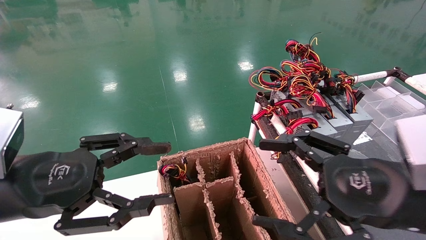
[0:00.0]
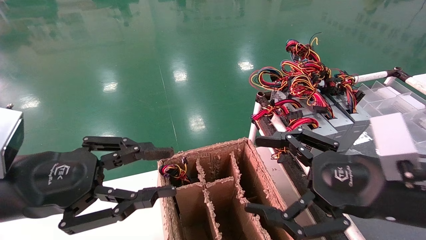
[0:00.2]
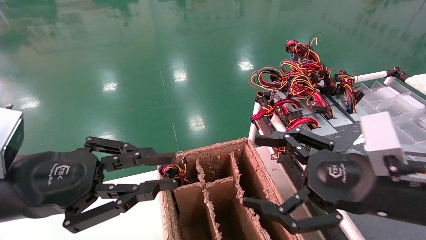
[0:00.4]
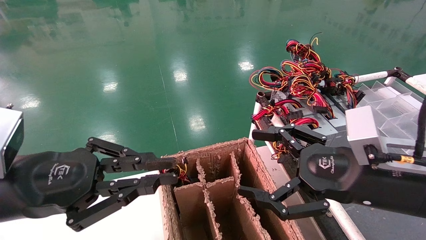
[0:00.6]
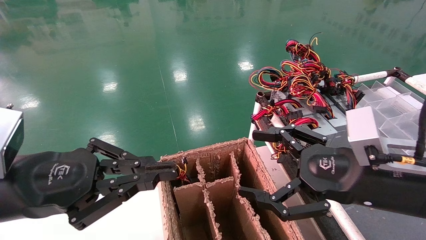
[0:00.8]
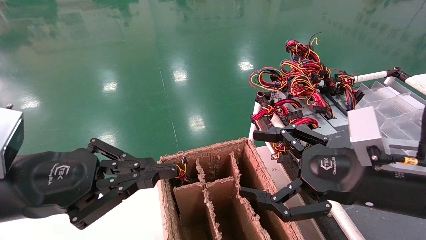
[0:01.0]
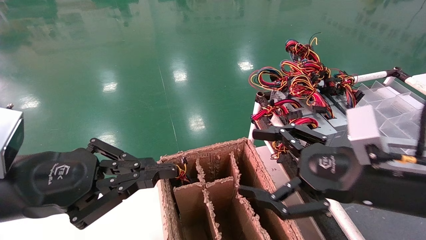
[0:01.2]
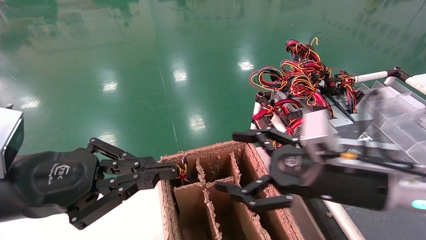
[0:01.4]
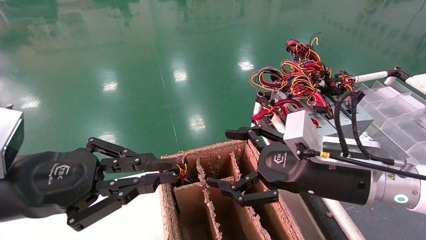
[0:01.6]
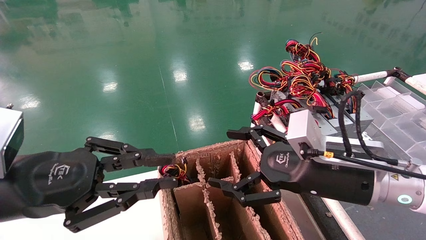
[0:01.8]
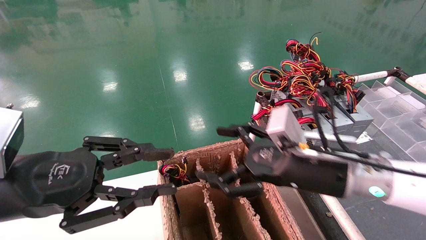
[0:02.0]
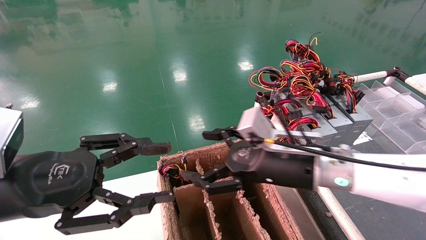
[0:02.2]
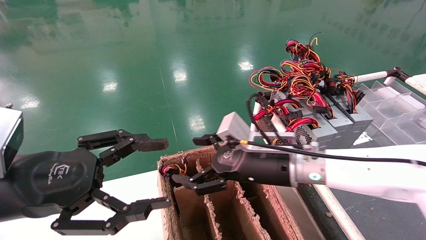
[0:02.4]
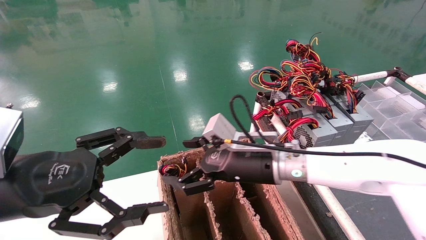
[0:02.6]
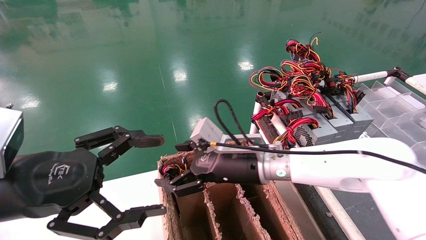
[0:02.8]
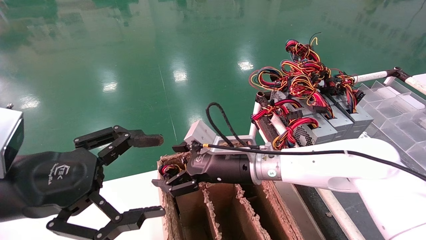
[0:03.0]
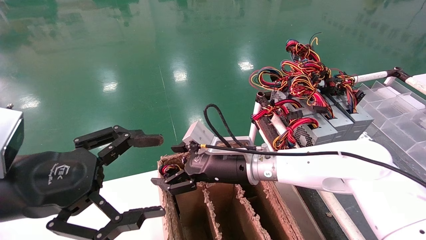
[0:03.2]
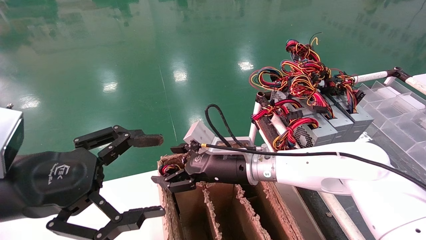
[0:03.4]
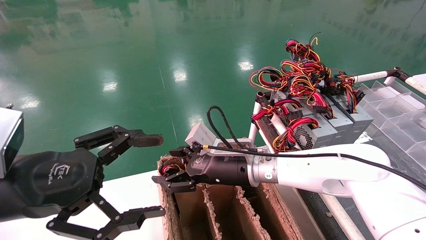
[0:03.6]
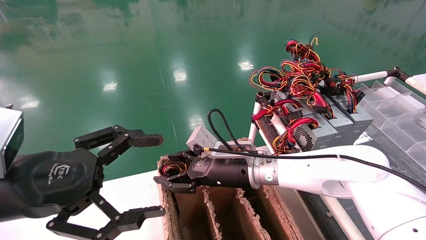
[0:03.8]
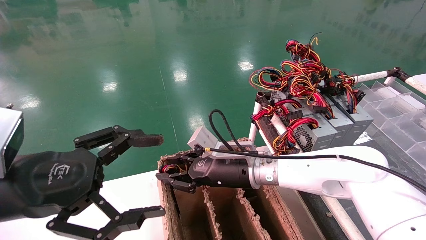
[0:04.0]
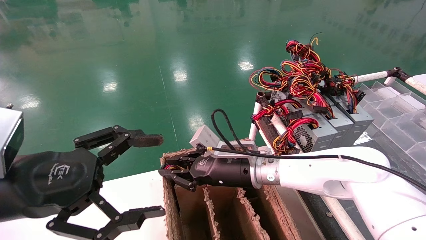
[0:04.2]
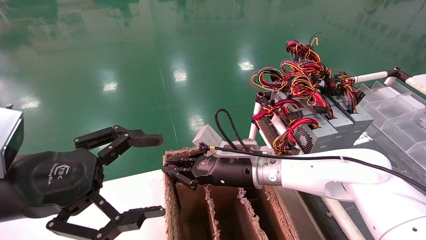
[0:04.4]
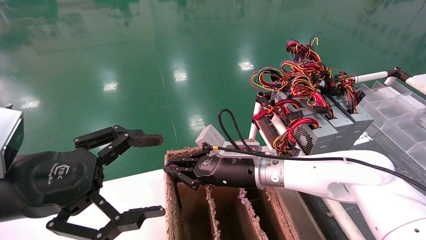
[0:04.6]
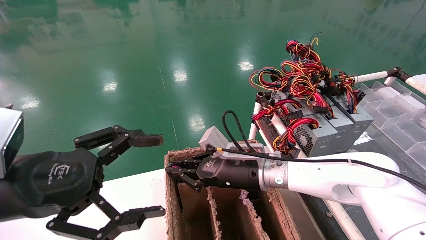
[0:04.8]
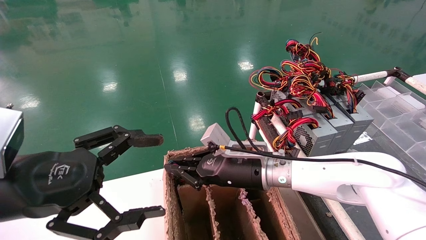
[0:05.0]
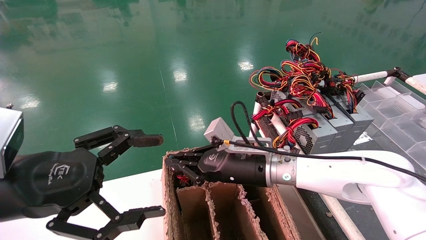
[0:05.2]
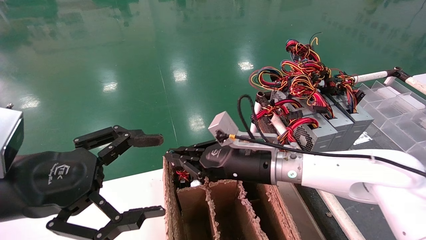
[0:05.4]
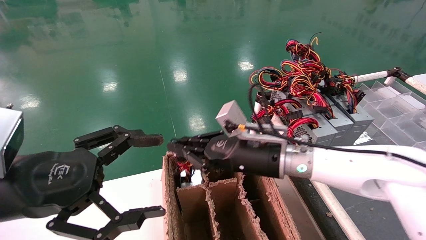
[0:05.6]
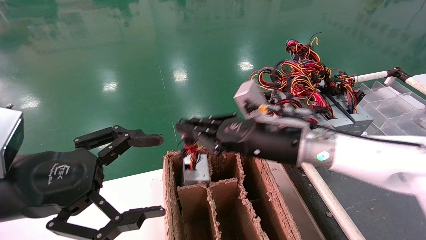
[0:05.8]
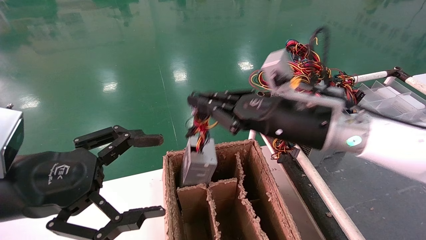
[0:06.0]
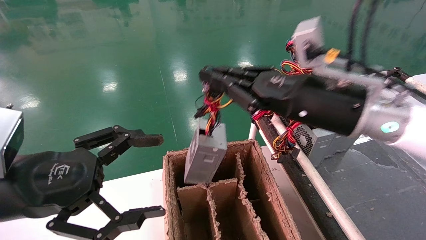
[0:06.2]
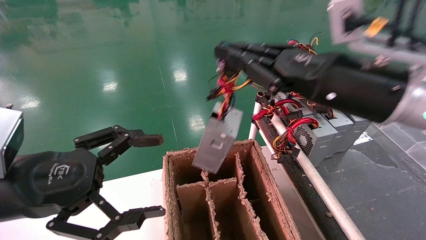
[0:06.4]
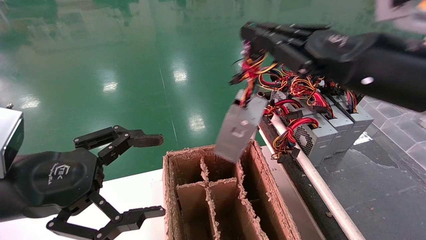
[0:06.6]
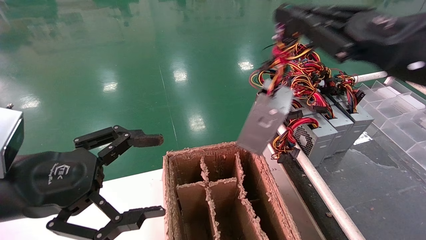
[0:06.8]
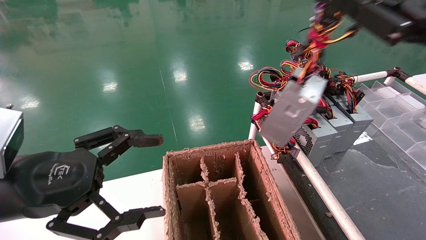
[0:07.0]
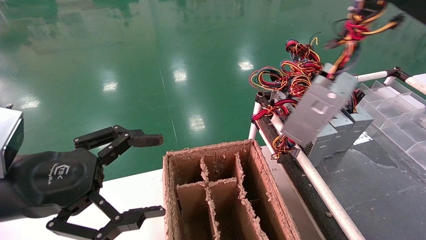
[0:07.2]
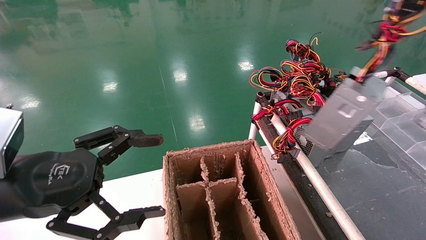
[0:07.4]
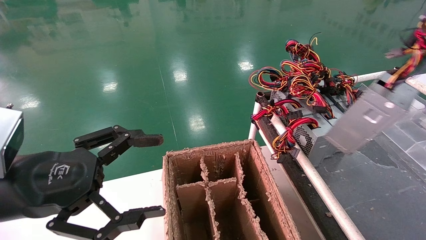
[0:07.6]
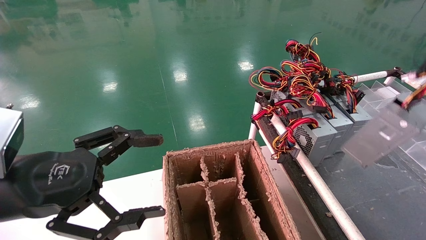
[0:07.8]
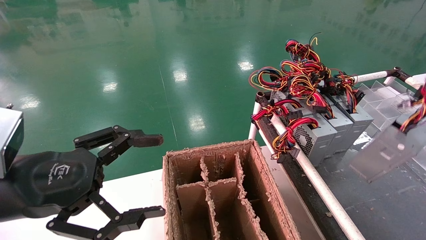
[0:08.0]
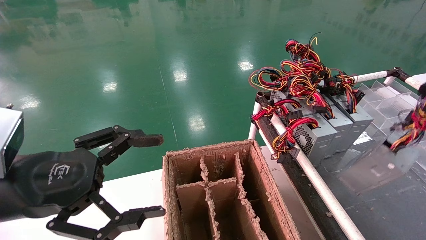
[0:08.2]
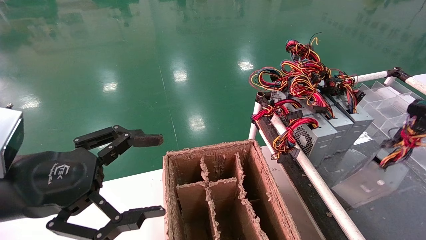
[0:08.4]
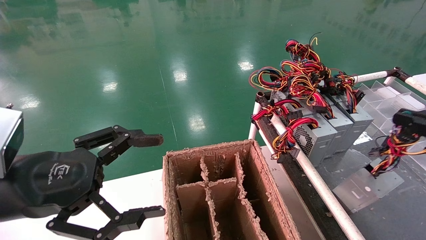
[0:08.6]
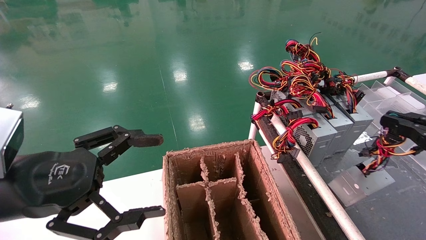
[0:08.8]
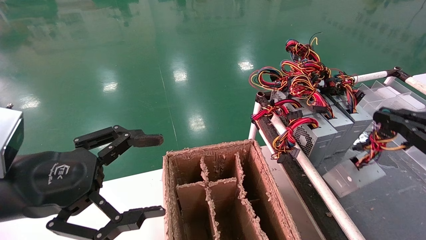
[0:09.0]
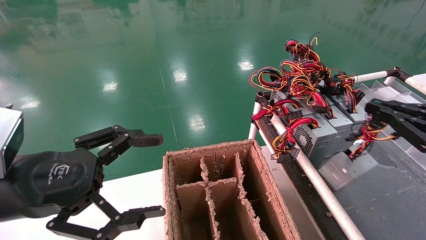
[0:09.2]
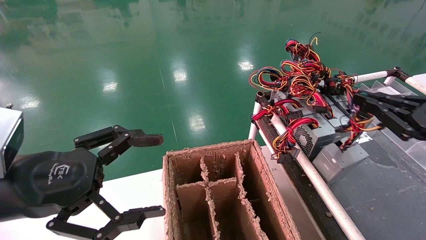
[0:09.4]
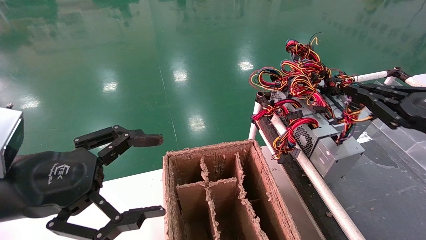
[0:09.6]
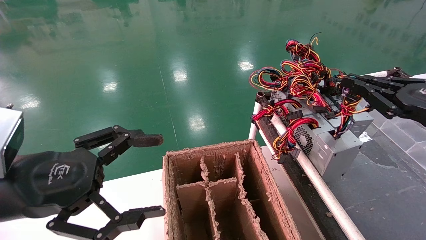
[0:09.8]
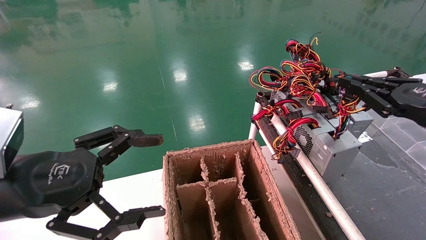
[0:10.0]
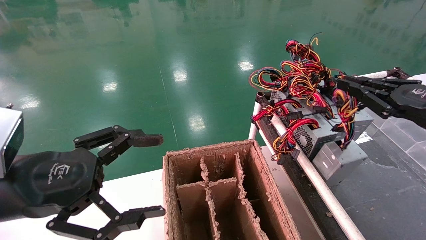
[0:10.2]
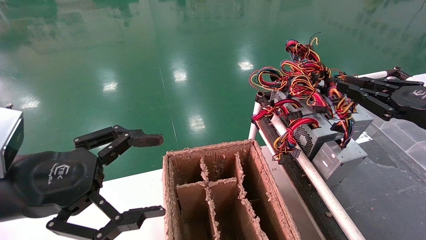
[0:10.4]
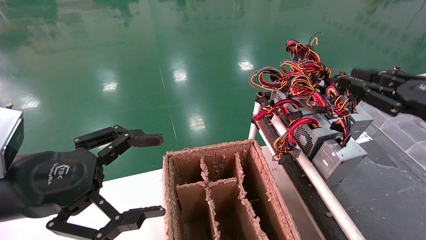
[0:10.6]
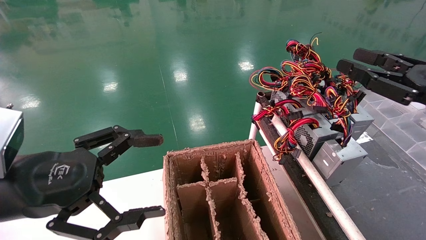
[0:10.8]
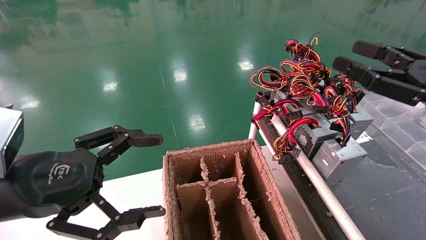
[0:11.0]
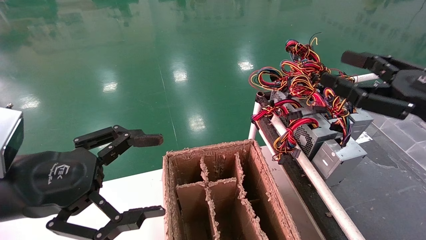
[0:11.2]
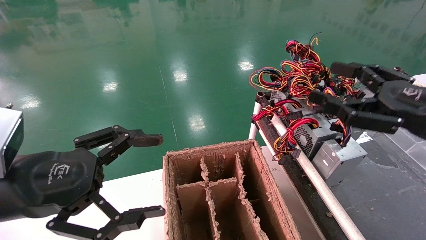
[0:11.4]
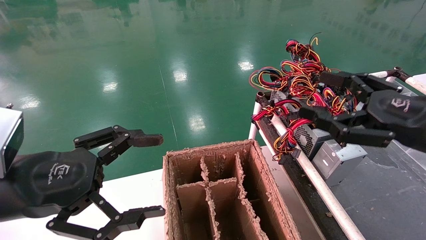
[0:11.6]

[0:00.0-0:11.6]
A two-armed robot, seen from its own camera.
Step, 1.4 to 4.8 s: Grab and lift the power supply from the large box.
Step, 5.0 to 10.2 s: Place the power supply on the operating table.
0.0 to 1.4 s: The left gripper closes its fingers. The right gripper ends up roughly 5 cm from where it was.
1.4 to 2.8 s: The right gripper is displaced to the left and forward by about 20 cm, while the left gripper opens up.
2.8 to 4.4 s: The right gripper closes its fingers.
4.4 to 5.8 s: The right gripper moves upward and to the right, some 10 cm.
5.8 to 7.2 s: The right gripper moves to the right, backward and upward, about 30 cm.
7.2 to 8.8 s: The right gripper is displaced downward and to the right by roughly 15 cm.
8.8 to 10.2 s: The right gripper shifts roughly 10 cm forward.
10.2 to 11.6 s: The right gripper goes roughly 5 cm to the left, and opens its fingers.

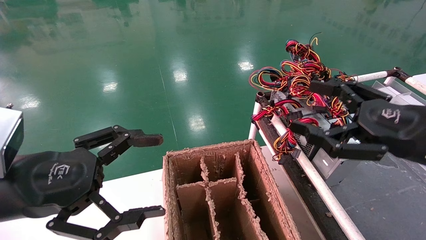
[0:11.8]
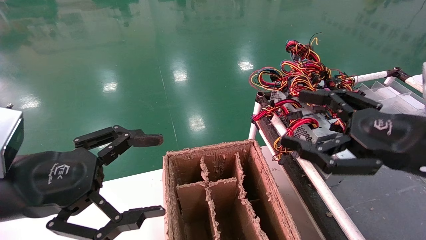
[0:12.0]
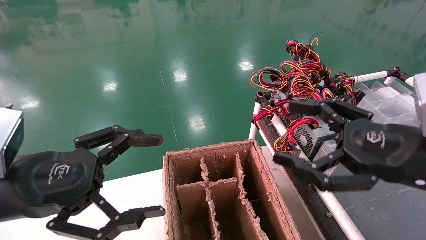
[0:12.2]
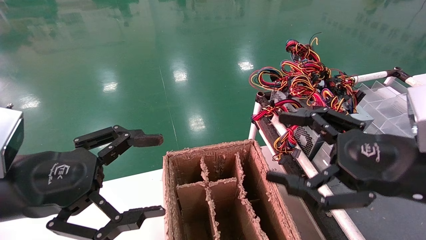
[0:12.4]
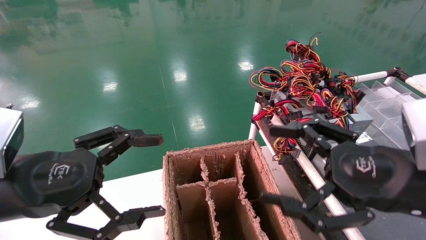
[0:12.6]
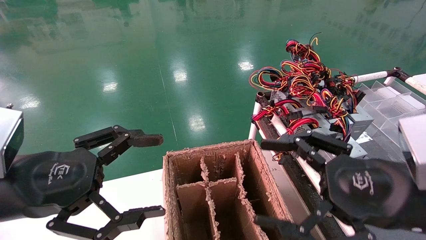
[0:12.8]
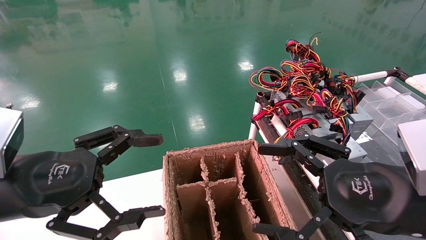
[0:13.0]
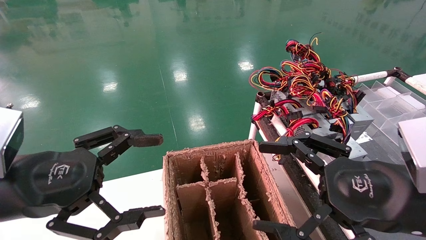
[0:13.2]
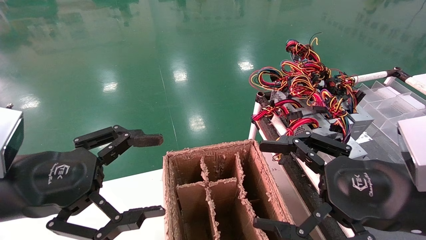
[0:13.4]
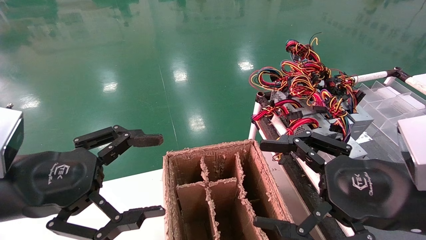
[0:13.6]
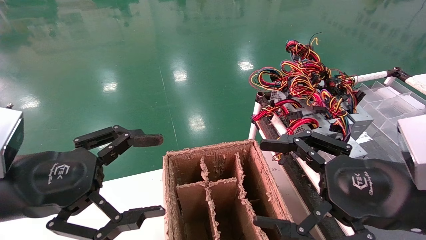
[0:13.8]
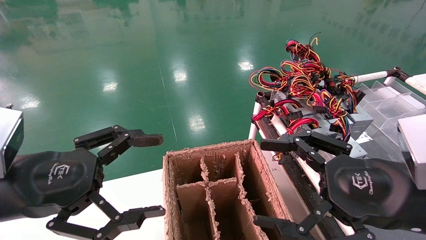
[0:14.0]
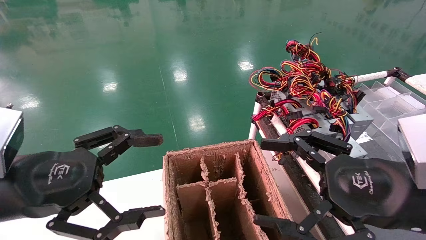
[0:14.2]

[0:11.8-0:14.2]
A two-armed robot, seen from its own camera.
11.8 to 13.0 s: The right gripper heads to the left, covering some 5 cm.
13.0 to 14.2 s: The two grippers keep their place.

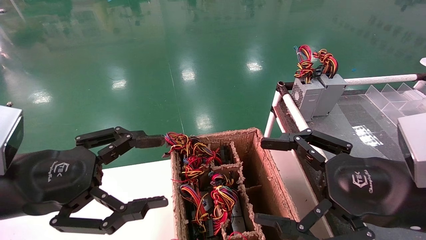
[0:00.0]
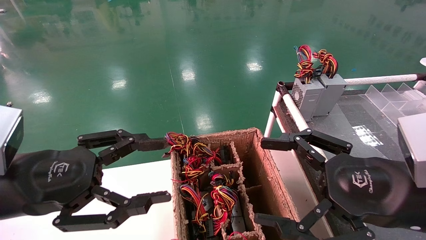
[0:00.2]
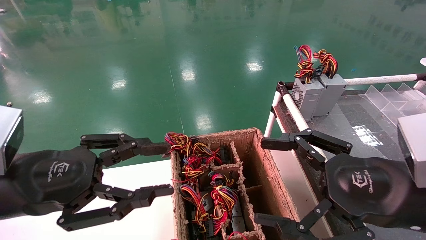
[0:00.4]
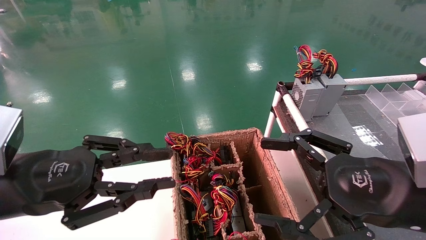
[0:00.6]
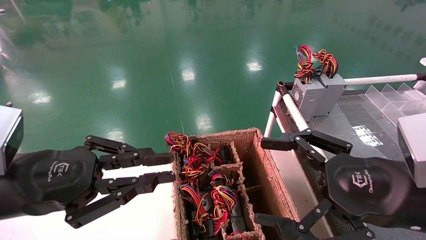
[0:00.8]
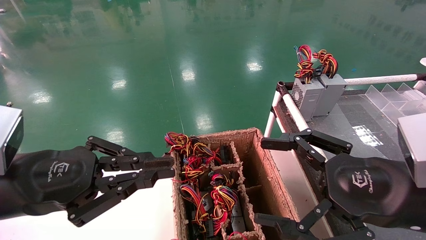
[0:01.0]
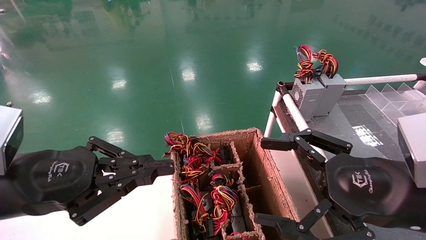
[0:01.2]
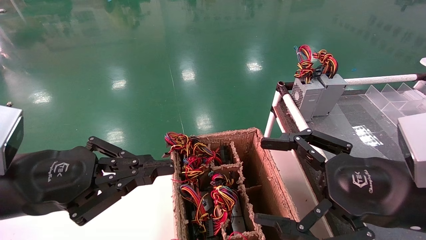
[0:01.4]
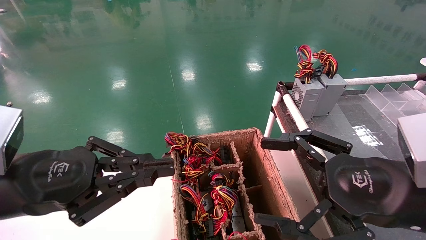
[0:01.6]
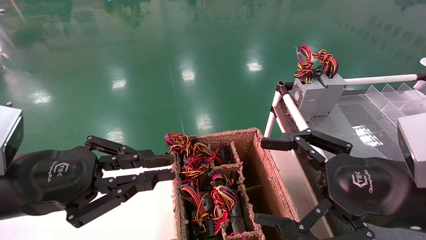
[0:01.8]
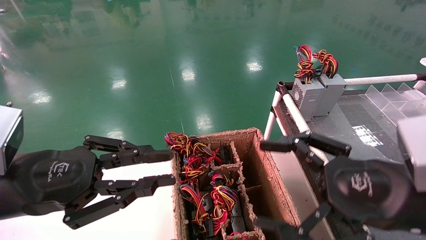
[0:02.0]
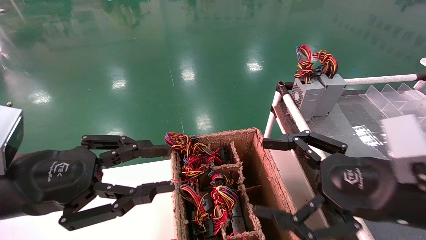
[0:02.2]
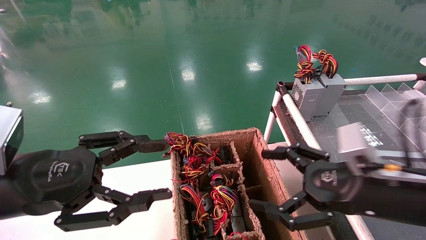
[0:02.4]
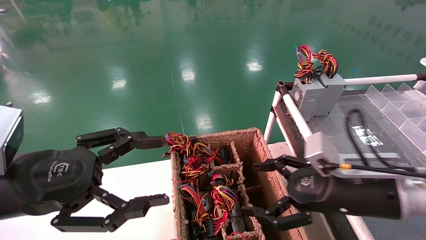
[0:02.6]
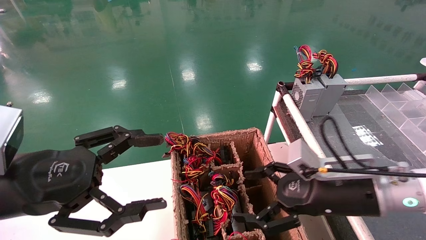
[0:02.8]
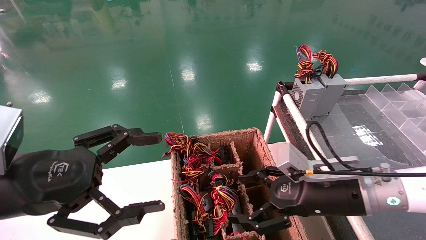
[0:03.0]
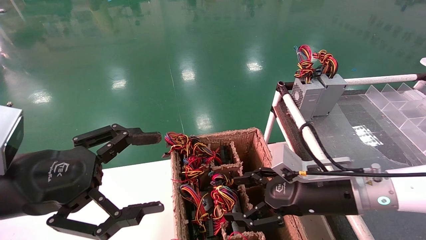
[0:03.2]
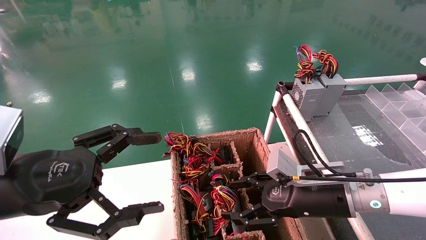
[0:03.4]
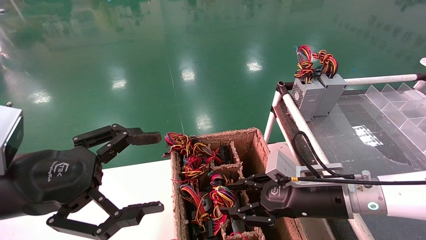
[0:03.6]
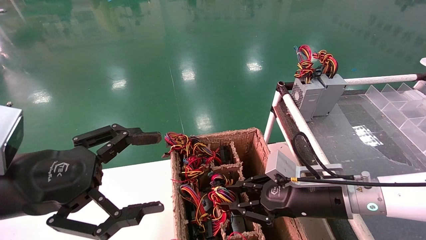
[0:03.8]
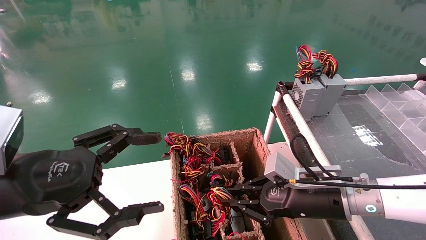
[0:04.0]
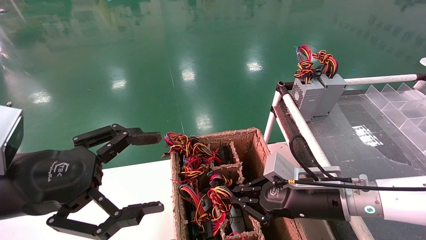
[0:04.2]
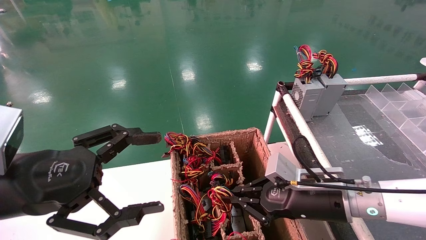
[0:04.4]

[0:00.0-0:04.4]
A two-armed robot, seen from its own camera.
Step, 1.2 to 4.4 s: Grab and lift the power supply from the large box.
0.0 to 1.4 s: The left gripper closes.
1.4 to 3.0 s: The right gripper goes approximately 15 cm forward and downward, while the left gripper opens its fingers.
3.0 to 4.4 s: The right gripper closes.
